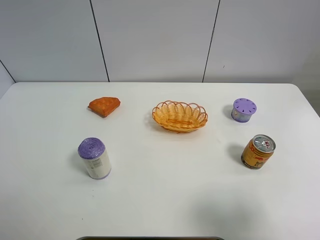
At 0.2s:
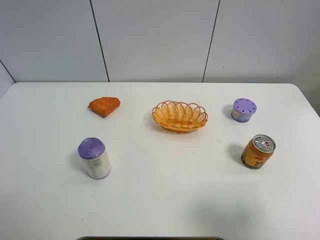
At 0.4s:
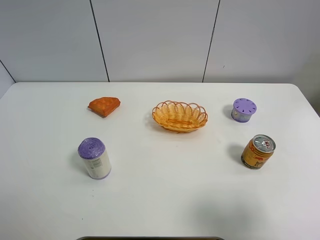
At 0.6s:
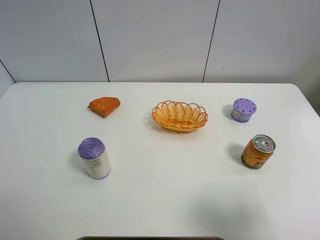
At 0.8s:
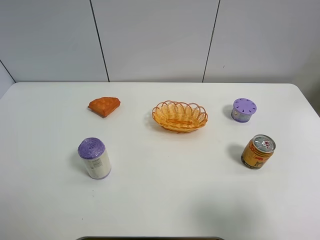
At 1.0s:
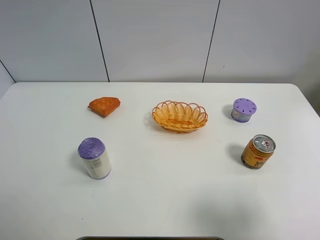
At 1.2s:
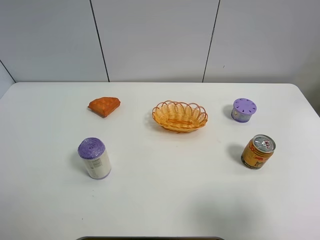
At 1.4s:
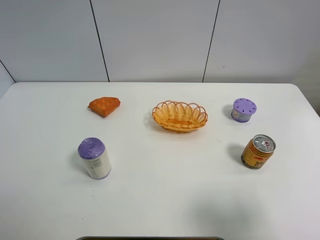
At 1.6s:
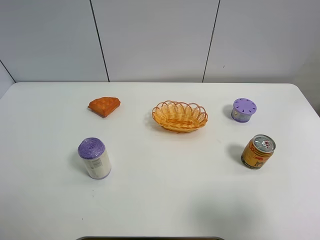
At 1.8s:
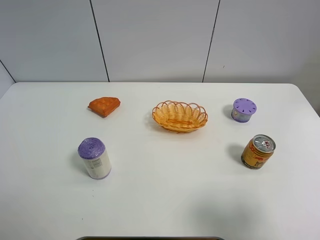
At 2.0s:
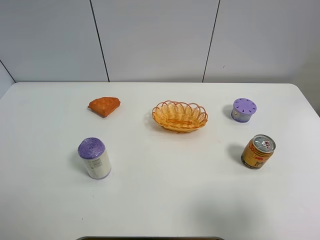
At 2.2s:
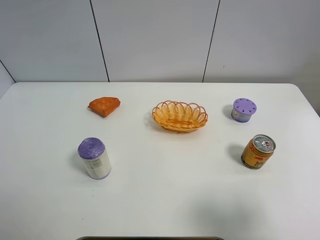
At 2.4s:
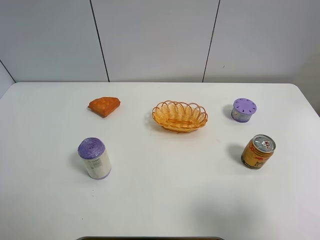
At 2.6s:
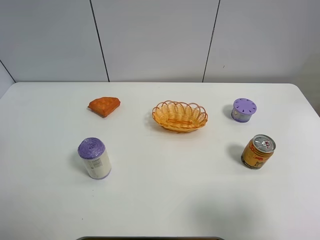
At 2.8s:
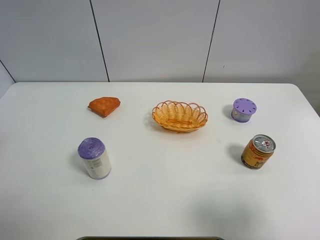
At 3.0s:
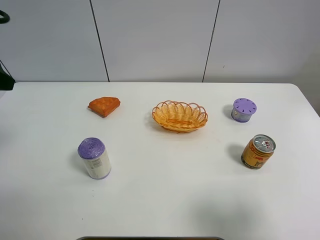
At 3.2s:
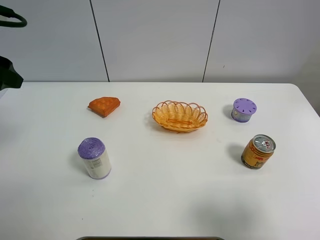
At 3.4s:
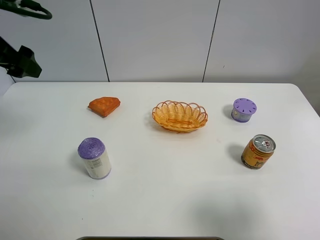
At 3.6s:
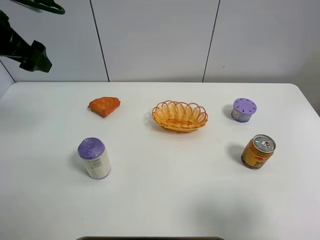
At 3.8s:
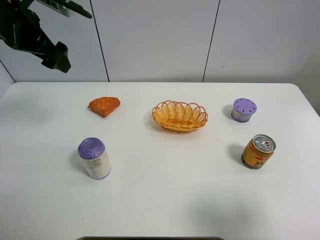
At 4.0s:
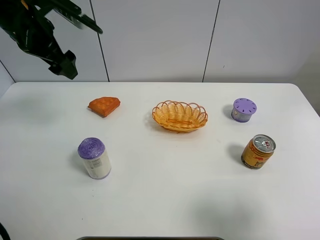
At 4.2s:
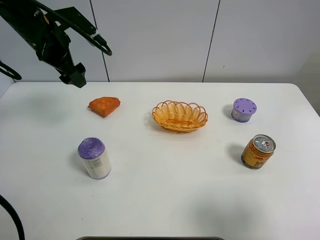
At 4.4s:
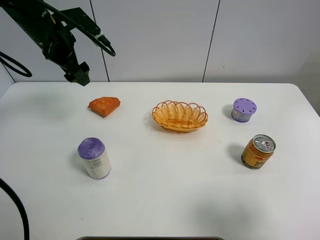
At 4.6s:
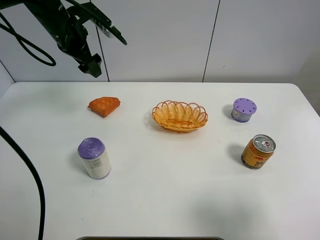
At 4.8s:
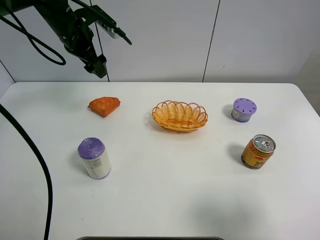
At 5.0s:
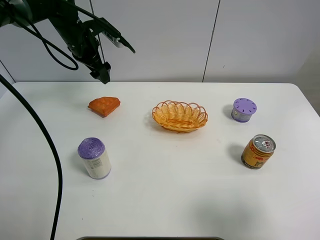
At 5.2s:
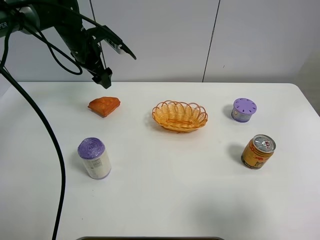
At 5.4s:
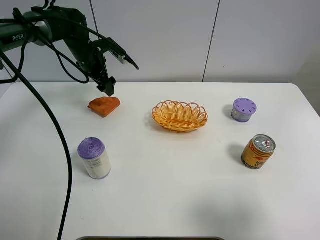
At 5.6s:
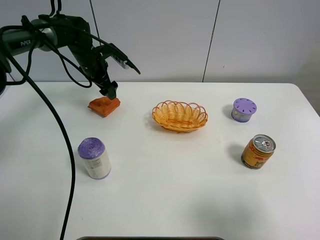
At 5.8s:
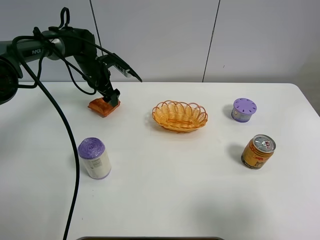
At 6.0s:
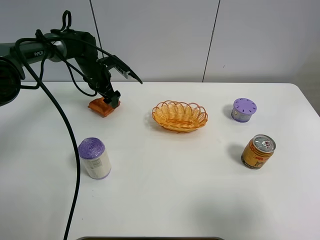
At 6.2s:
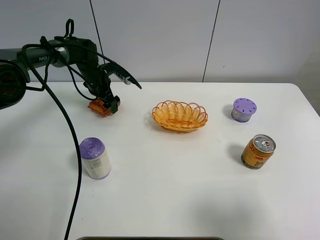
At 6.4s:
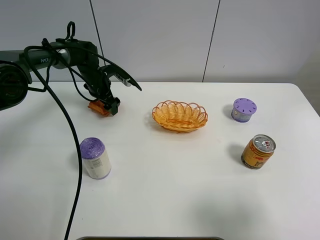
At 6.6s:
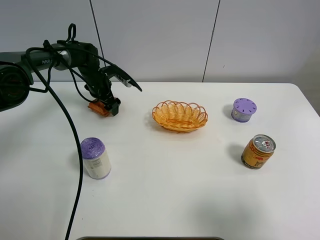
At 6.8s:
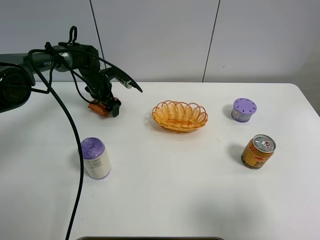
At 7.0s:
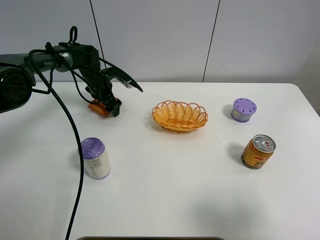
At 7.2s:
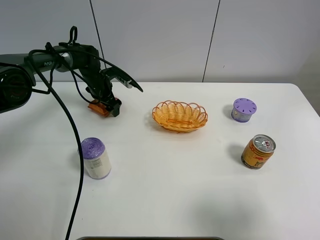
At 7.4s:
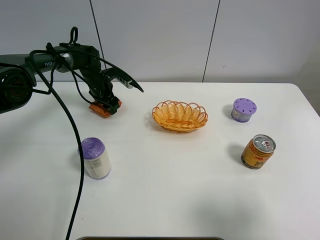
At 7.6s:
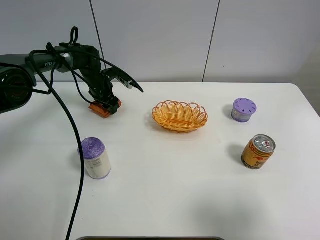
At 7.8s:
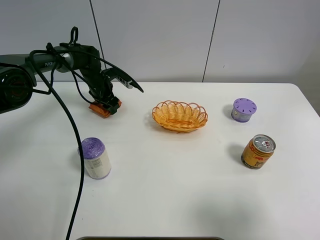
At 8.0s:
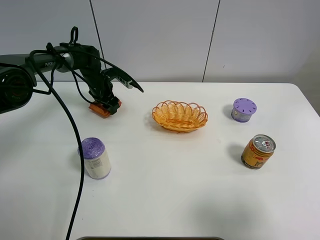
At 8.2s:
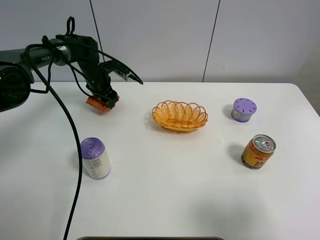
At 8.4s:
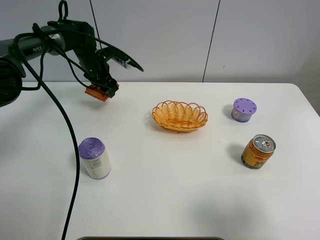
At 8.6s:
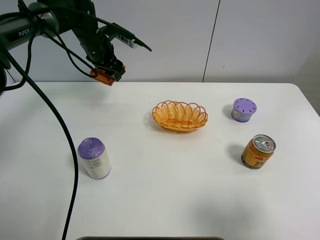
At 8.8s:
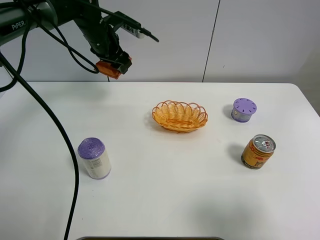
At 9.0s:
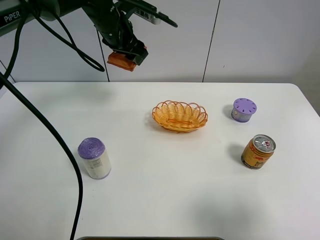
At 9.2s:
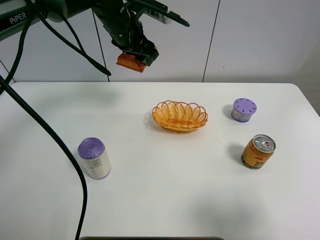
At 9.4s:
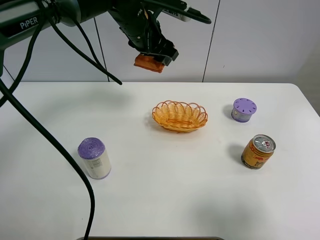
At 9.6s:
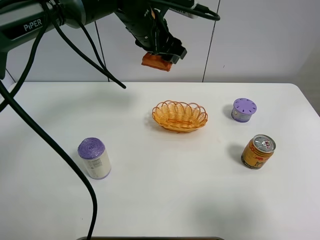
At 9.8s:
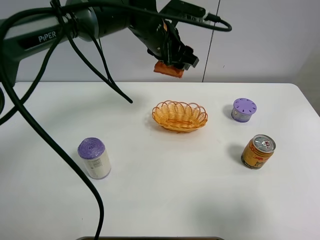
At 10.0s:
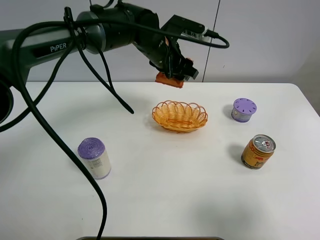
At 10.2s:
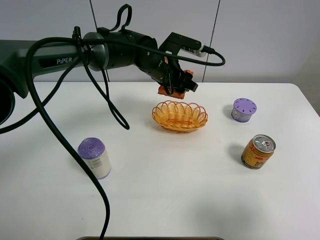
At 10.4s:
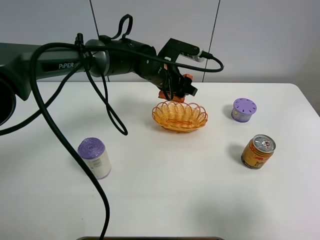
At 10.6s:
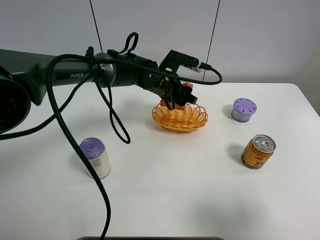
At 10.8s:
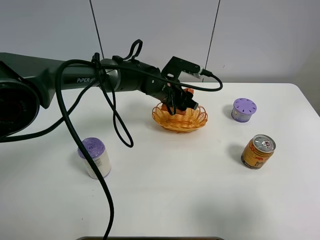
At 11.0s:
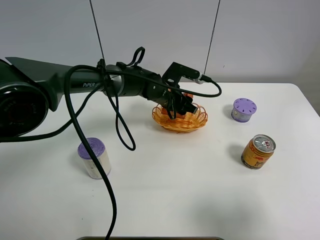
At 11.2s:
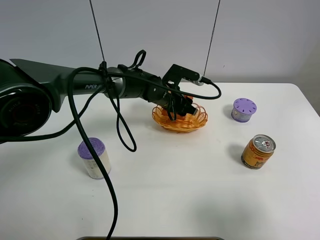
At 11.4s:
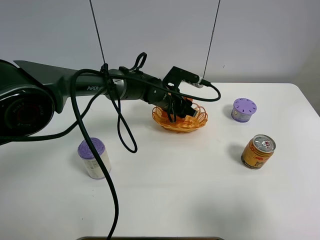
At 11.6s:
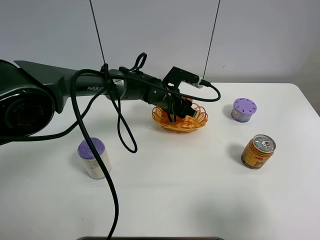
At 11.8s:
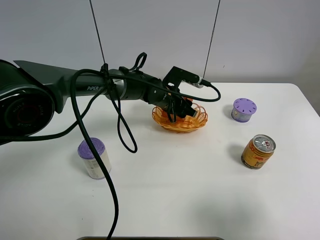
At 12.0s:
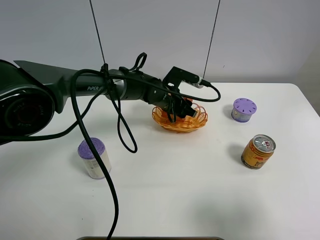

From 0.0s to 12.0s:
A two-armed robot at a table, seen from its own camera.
Task of the whole recording: Put the bakery in the basket.
Step, from 0.0s to 7.2s: Grasp the bread with left gripper.
From 0.0s to 1.6s: Both grippers stay put.
From 3.0s to 4.4s: The left gripper shifts about 20 cm forward and to the right.
From 4.4s to 6.0s: The left gripper travels downward and forward by about 20 cm.
From 6.0s to 7.6s: The left gripper closes up.
From 7.6s to 9.0s: The left gripper shifts approximately 20 cm upward and to the right.
From 9.0s to 10.4s: The left gripper travels downward, to the right and backward by roughly 15 cm.
From 10.4s to 12.0s: The left gripper travels downward by some 5 cm.

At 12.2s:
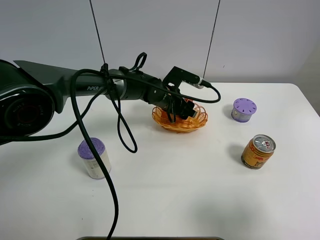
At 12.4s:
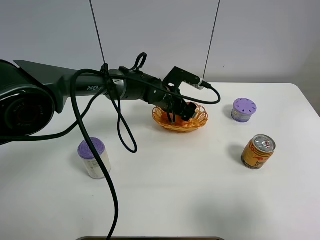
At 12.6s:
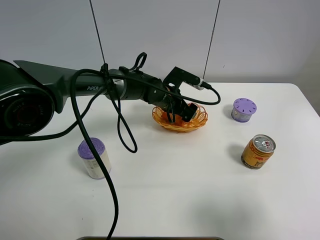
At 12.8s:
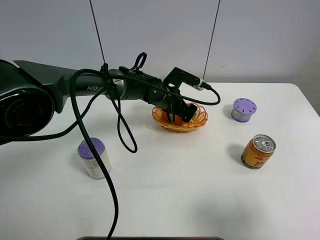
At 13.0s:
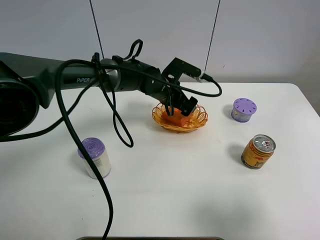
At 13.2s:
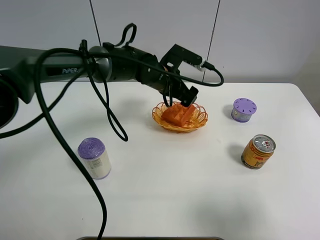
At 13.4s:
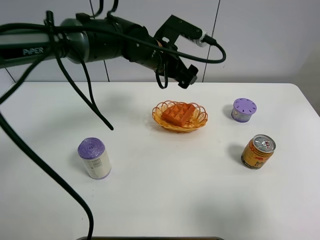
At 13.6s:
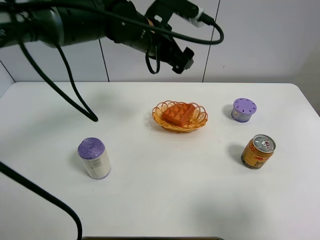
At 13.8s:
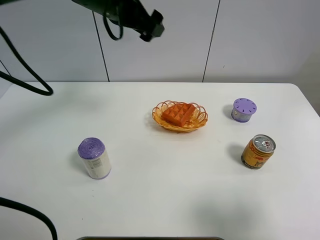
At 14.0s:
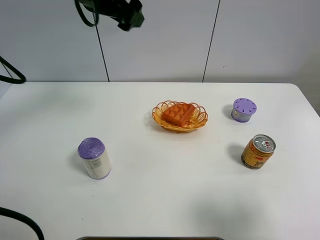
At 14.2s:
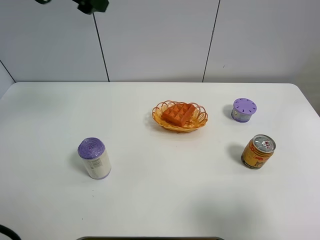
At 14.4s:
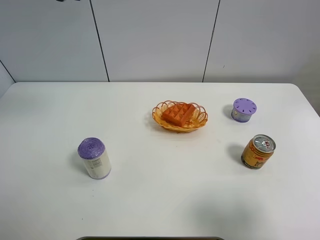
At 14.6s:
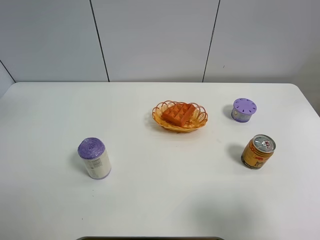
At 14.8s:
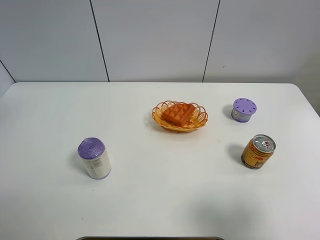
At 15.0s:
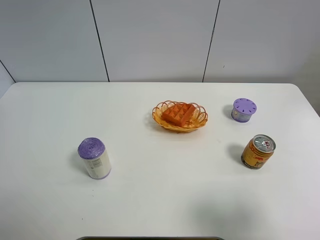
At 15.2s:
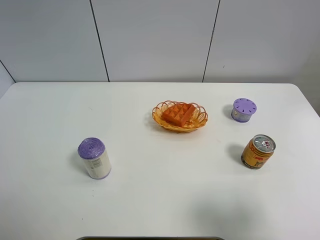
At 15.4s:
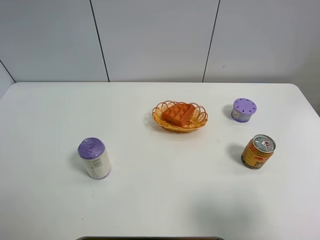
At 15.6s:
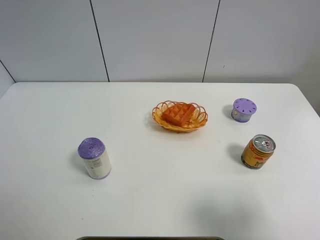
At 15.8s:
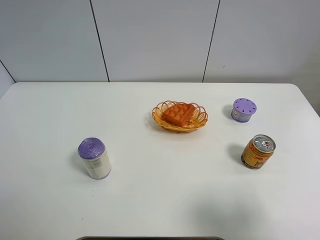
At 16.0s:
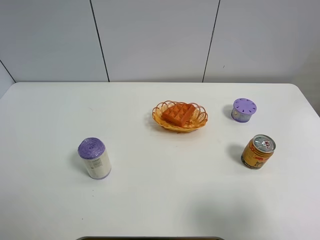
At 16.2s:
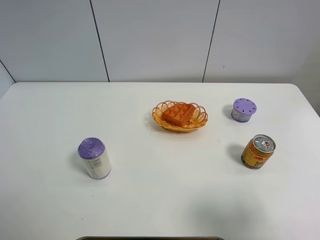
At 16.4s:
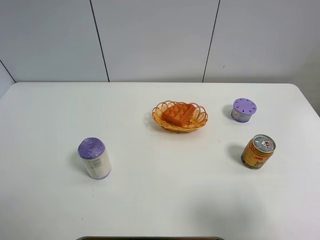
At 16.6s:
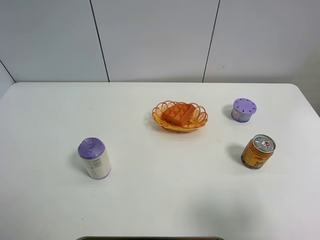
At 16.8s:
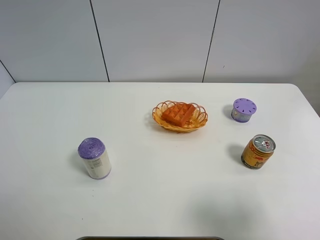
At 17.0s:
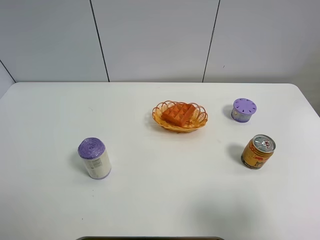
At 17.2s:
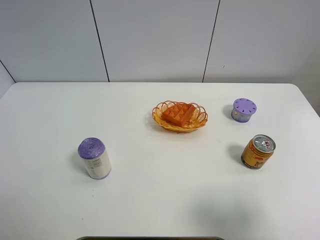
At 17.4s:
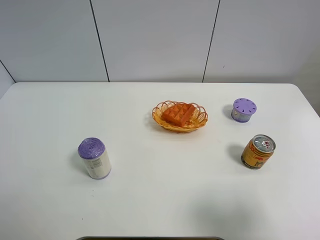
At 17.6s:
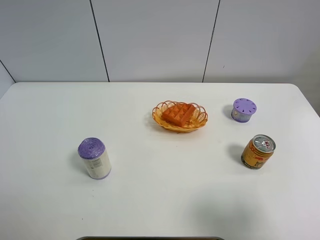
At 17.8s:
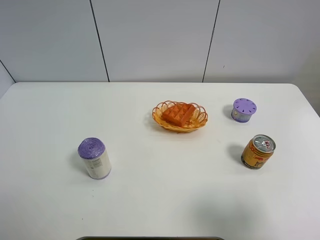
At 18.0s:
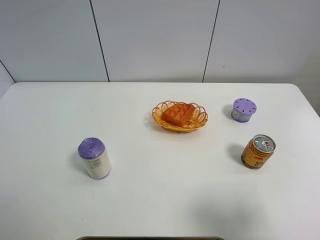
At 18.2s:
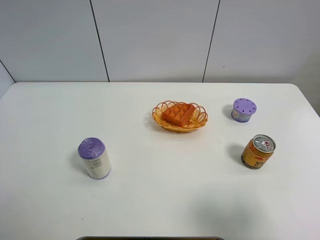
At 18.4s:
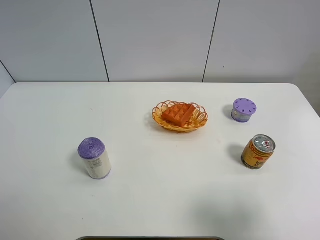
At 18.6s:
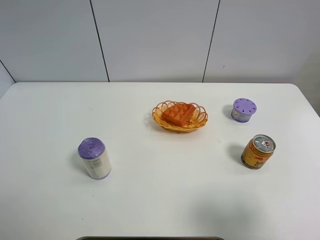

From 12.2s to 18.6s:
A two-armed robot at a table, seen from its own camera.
Task of the whole recording: Put the bakery in the basket.
From 12.2s to 13.8s: The left gripper is displaced upward and to the left by some 25 cm, and opens.
From 13.8s to 15.4s: The left gripper travels backward, to the left and upward by approximately 35 cm.
